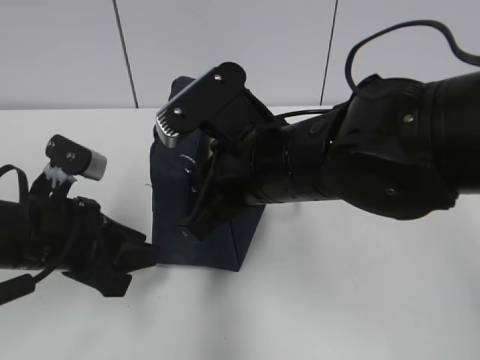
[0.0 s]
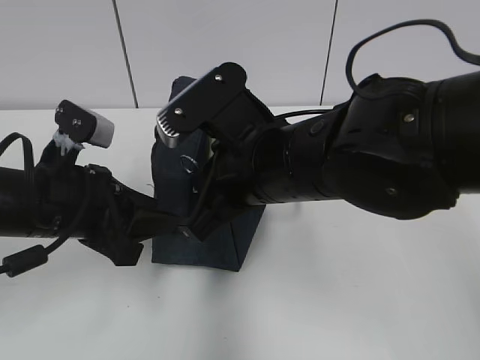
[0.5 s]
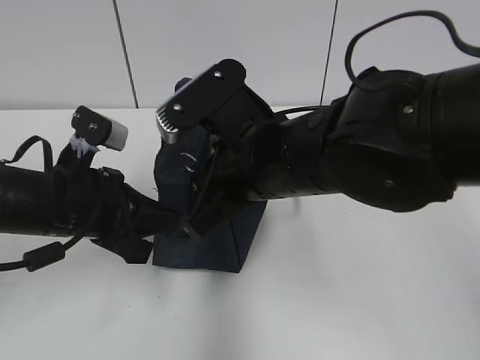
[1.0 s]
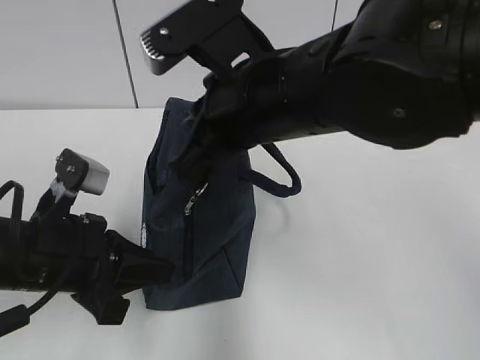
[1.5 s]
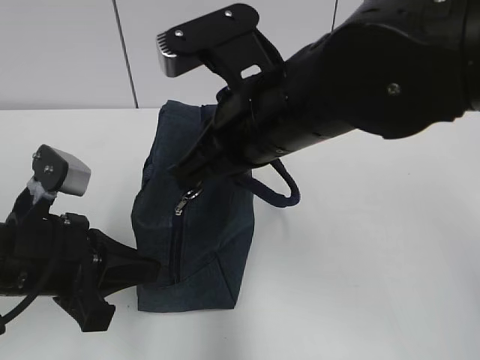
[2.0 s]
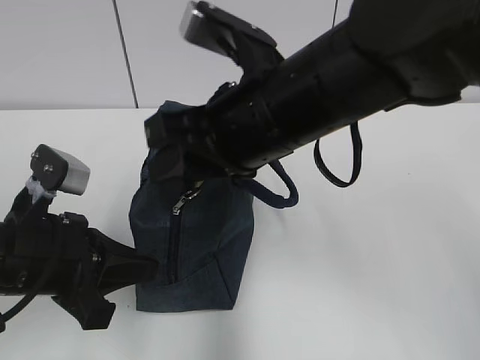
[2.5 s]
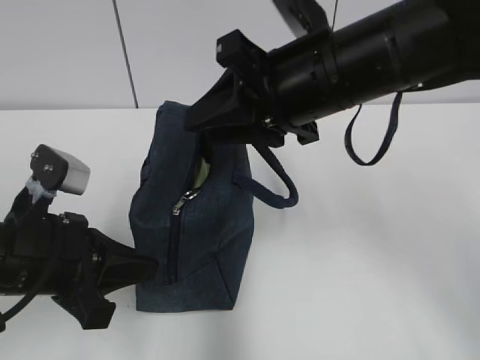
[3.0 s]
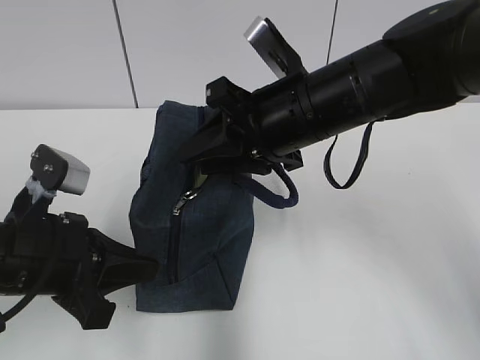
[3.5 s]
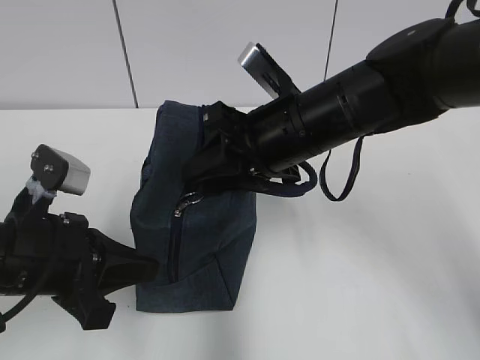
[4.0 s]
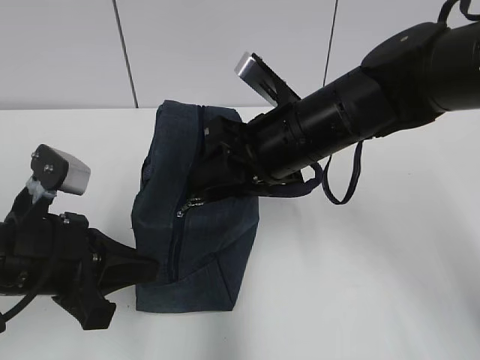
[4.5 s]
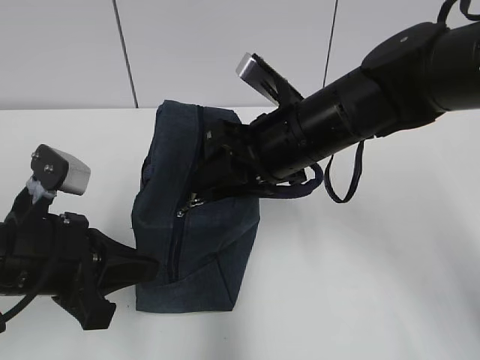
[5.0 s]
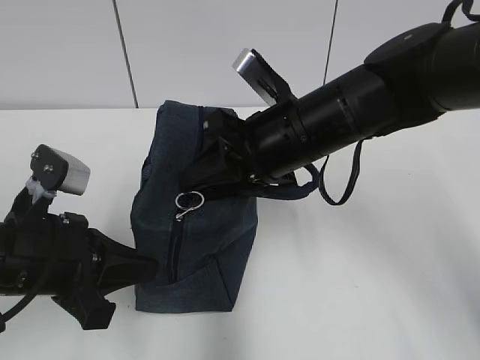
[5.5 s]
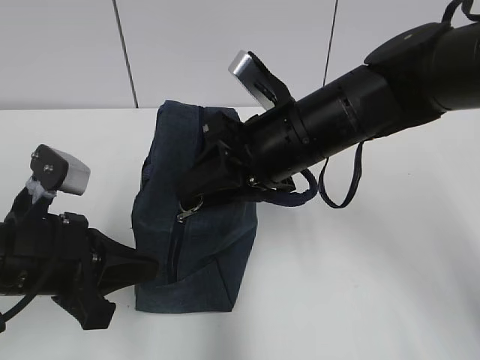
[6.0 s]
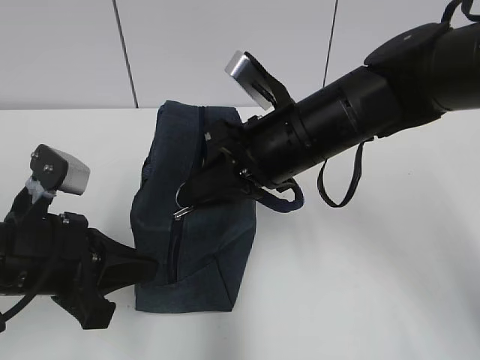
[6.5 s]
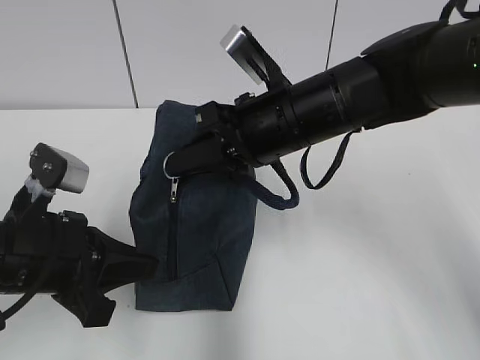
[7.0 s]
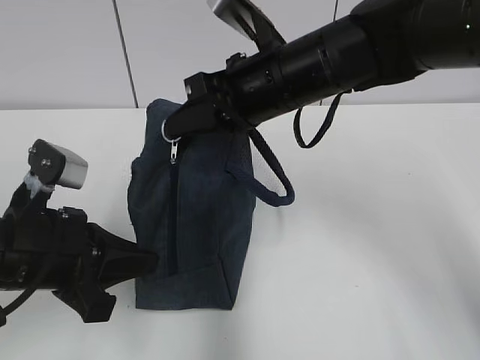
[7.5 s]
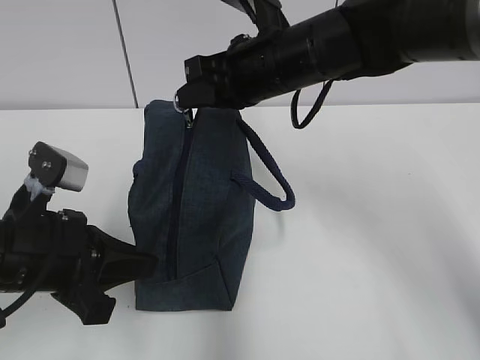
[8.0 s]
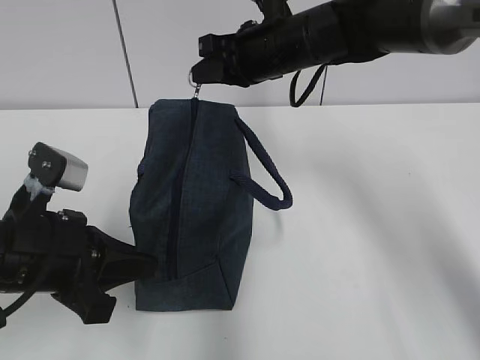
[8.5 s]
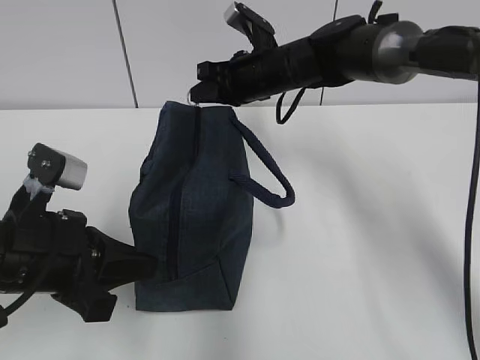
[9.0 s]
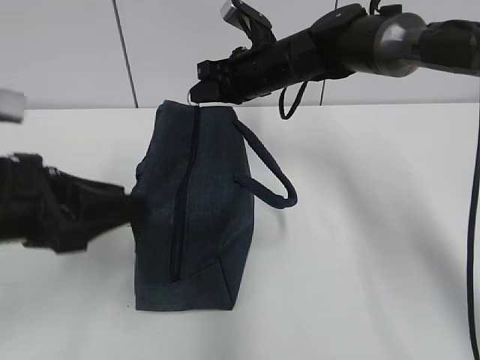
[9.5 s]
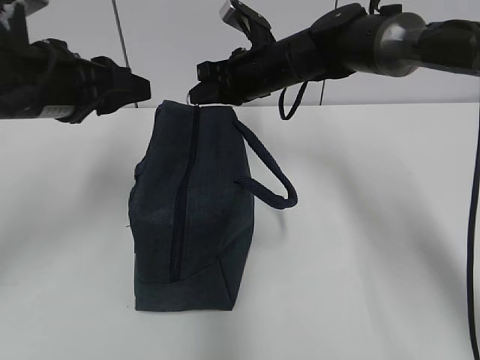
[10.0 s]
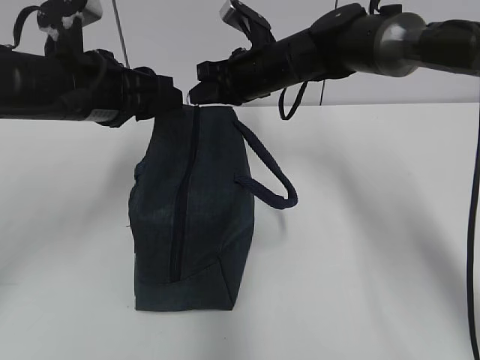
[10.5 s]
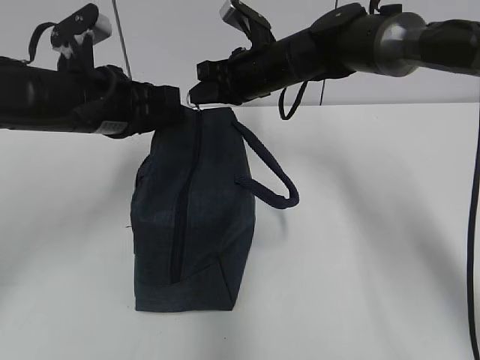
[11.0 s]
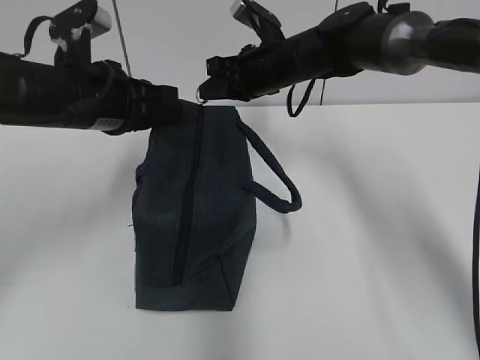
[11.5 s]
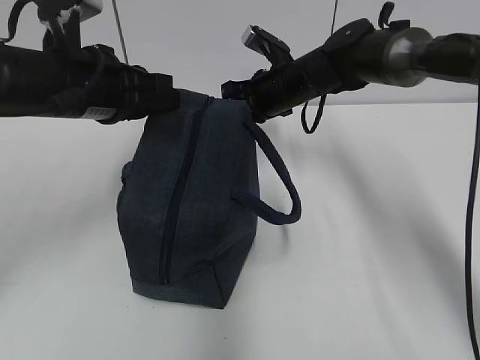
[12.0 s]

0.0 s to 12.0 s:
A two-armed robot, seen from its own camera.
0.0 to 2.0 s: The left gripper closes its fingers.
2.0 to 4.0 s: The right gripper shifts approximately 5 cm forward, and opens its fingers.
4.0 to 6.0 s: The grippers make only small movements.
6.0 to 8.0 s: The right gripper goes approximately 5 cm forward, and closes.
8.0 to 10.0 s: The left gripper is displaced forward and upward by approximately 15 cm, and opens its fingers. Meanwhile the right gripper heads forward and downward, covering approximately 10 cm.
10.0 to 12.0 s: The left gripper closes its fingers.

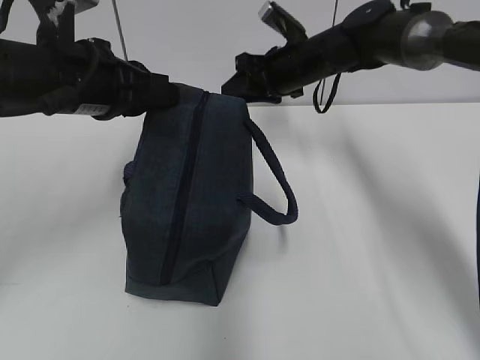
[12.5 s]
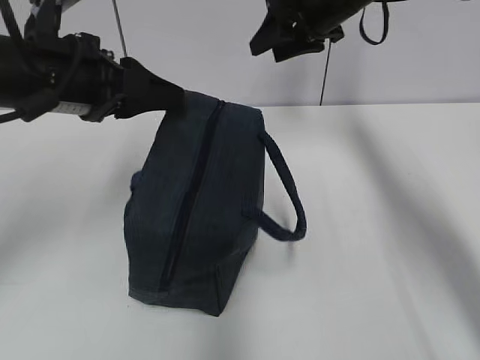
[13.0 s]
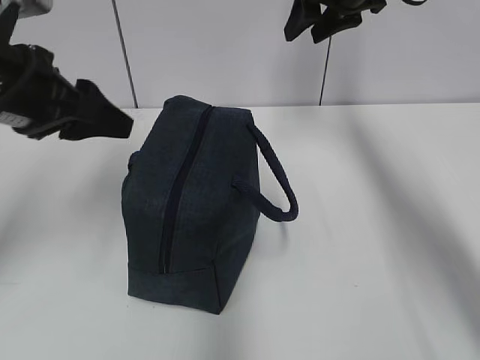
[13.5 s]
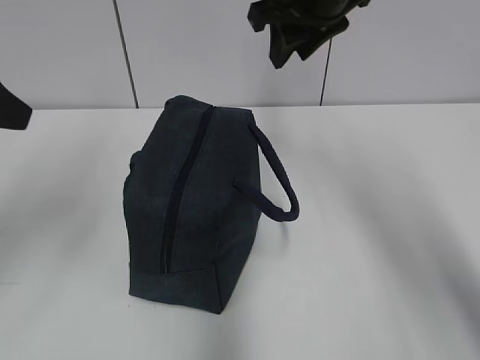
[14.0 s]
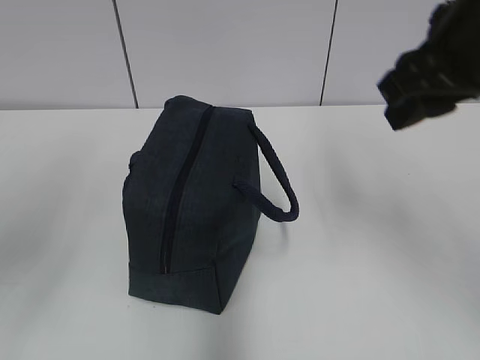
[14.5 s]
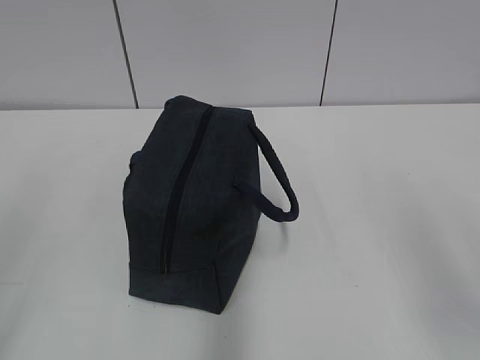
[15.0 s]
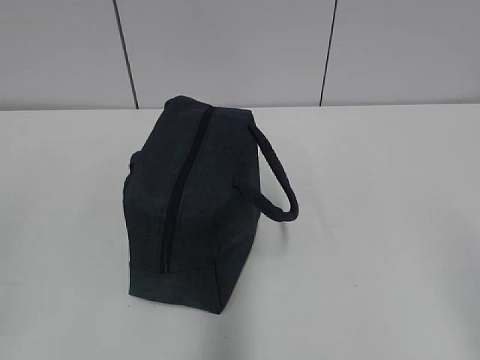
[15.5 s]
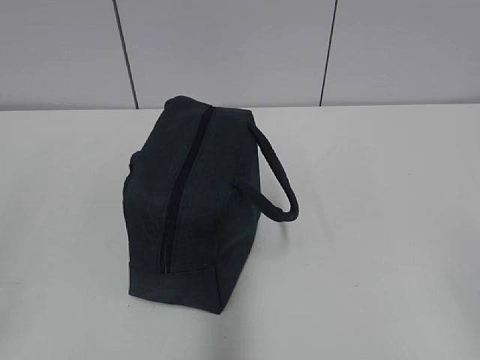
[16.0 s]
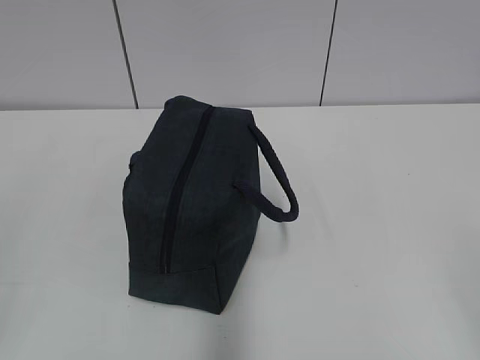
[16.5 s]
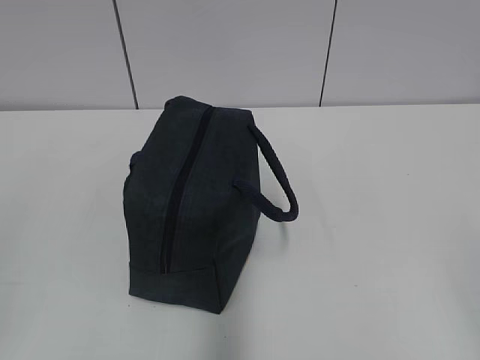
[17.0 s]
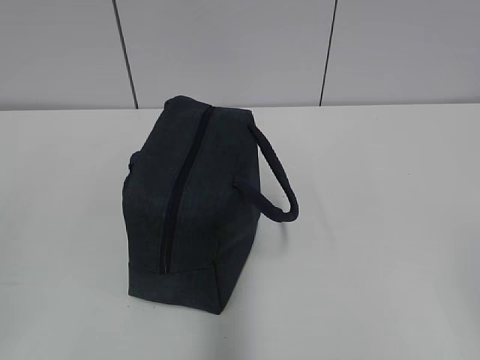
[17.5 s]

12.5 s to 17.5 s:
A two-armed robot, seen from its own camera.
Step, 12.5 to 13.0 s: Grab the lunch bag with your left hand.
12.5 to 15.0 s: The right gripper moves backward, about 40 cm, while the left gripper moves backward and to the left, roughly 30 cm, and opens its fingers.
15.0 to 17.5 s: The right gripper is displaced backward by roughly 10 cm.
